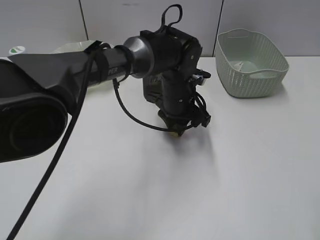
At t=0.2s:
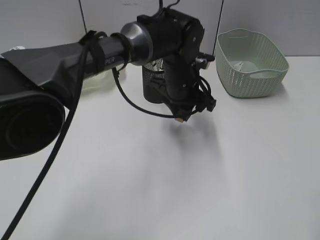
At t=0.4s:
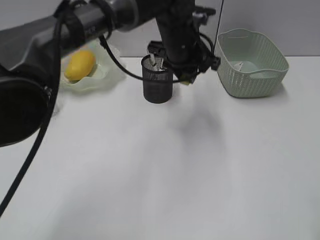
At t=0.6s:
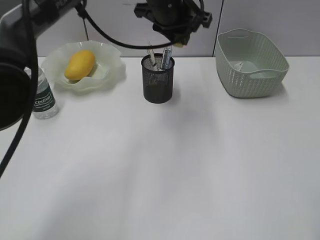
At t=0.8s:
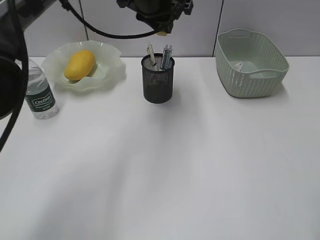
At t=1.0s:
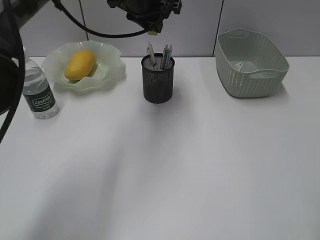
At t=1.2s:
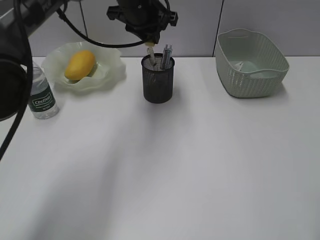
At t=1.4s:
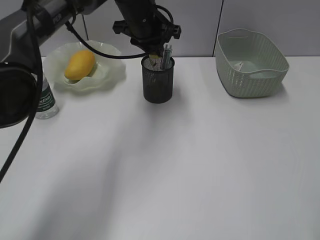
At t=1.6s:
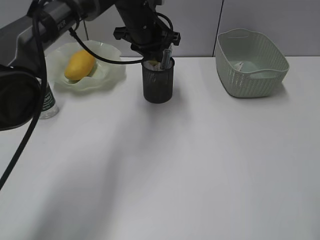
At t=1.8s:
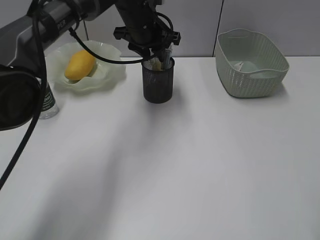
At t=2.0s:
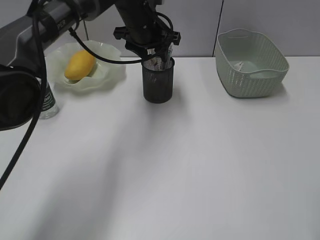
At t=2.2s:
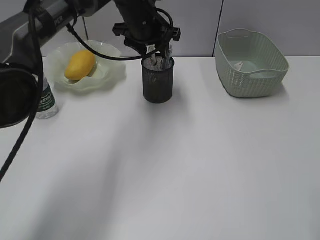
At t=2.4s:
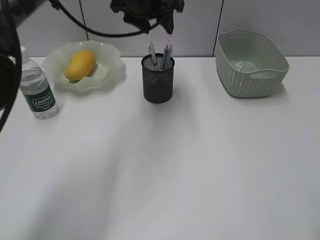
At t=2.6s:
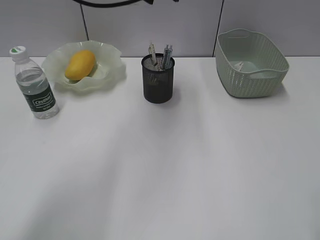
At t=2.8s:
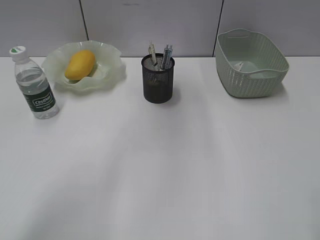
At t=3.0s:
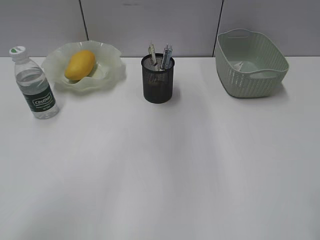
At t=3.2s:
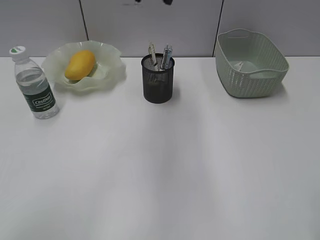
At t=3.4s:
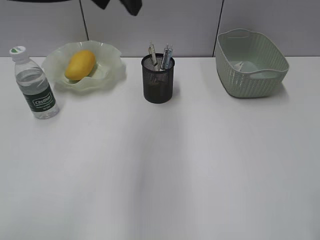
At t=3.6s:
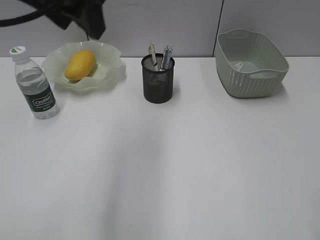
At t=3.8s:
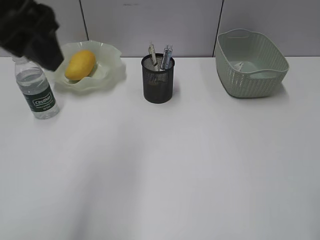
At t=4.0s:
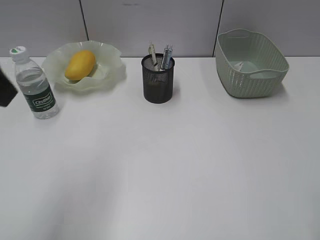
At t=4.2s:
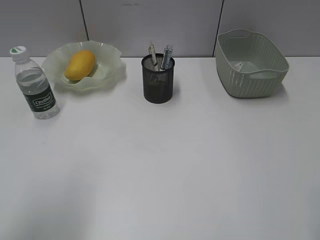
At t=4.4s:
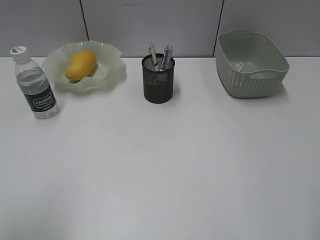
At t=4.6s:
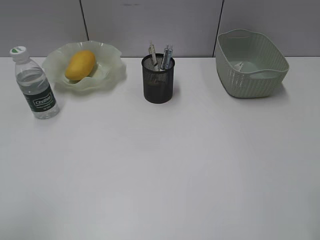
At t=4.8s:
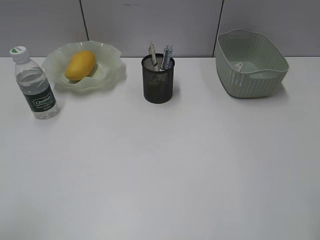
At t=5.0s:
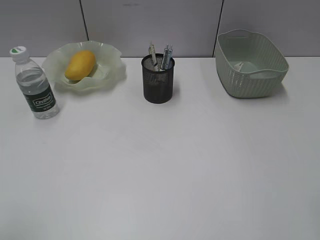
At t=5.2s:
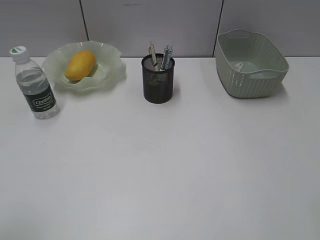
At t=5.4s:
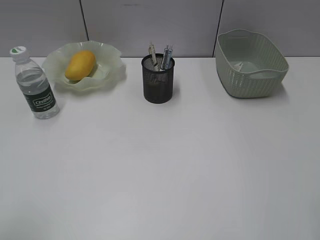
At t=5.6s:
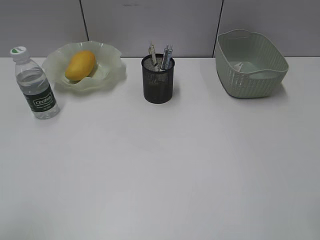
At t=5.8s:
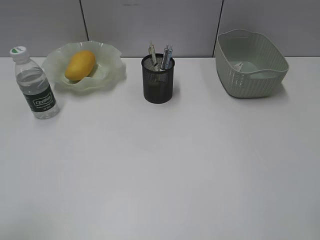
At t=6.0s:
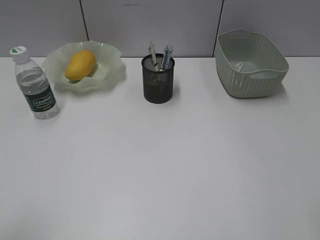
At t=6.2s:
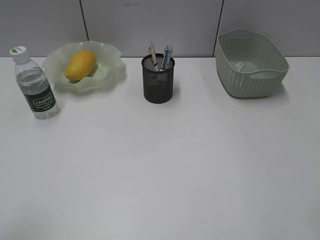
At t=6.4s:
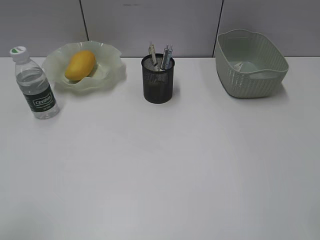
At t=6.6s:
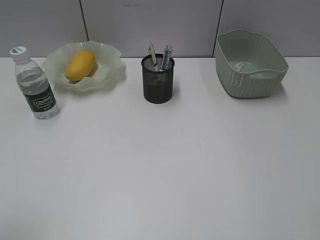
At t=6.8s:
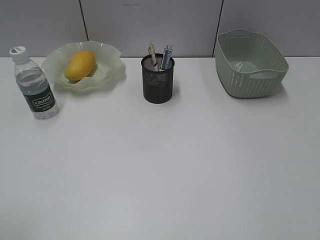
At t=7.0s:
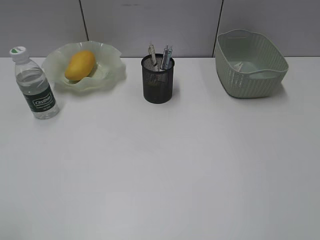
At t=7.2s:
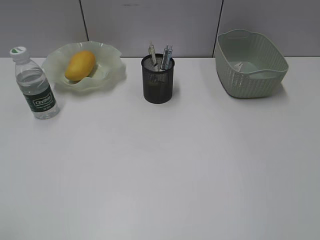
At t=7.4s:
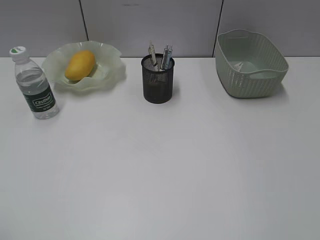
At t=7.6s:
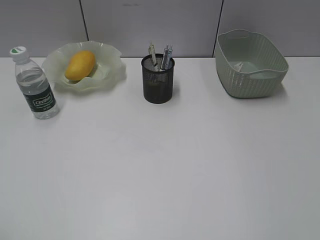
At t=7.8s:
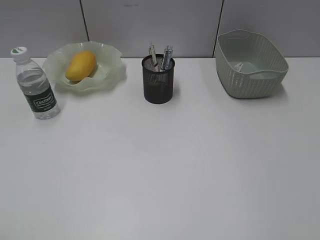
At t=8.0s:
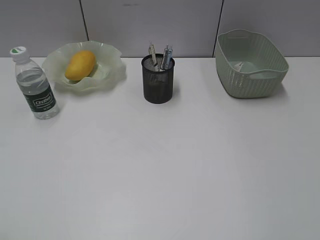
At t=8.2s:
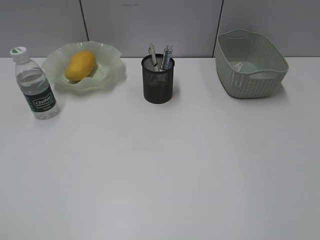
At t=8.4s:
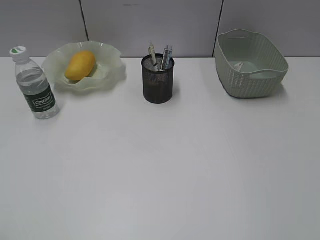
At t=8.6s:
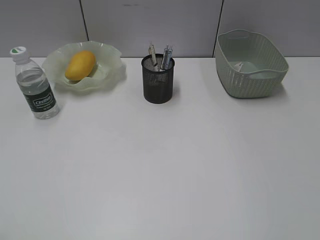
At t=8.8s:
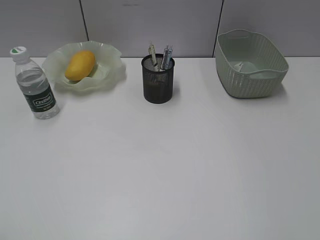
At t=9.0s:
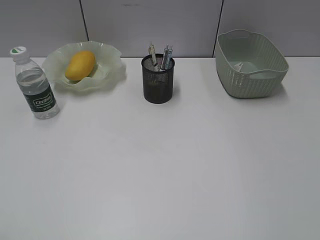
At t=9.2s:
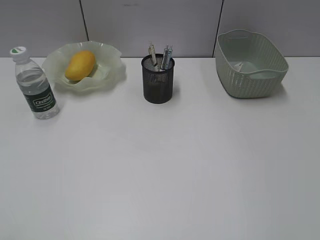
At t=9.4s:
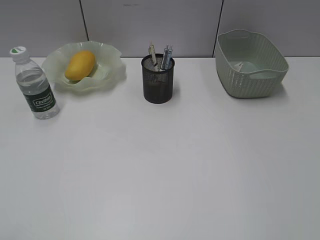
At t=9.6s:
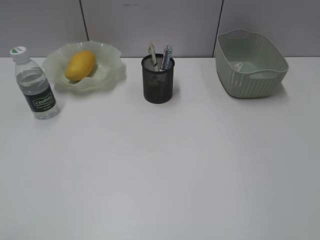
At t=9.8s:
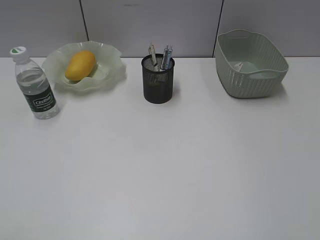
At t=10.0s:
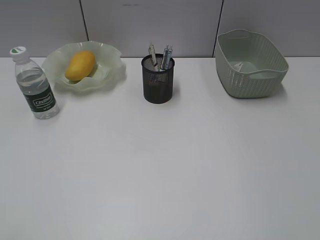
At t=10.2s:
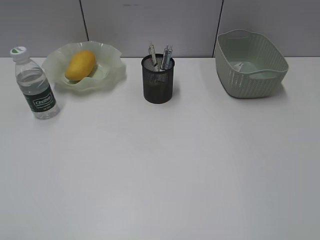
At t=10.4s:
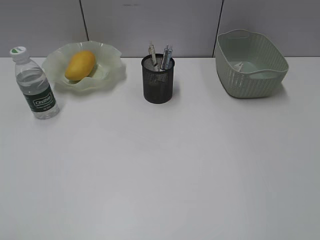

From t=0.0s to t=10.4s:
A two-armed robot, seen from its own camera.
Step, from t=0.0s to t=2.0s: Place the eraser in pen holder with left gripper.
From t=0.0s to t=1.4s: The left gripper heads upward, forward and to the left, covering roughly 15 cm.
From t=1.4s to t=3.0s: The left gripper heads upward and backward, covering approximately 20 cm, and opens up.
From t=3.0s to t=4.4s: The left gripper goes approximately 35 cm backward and to the left.

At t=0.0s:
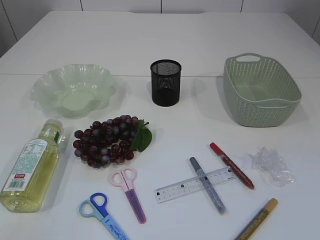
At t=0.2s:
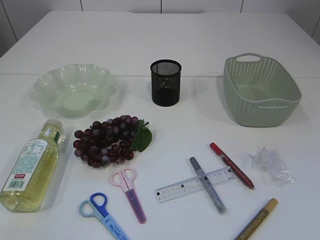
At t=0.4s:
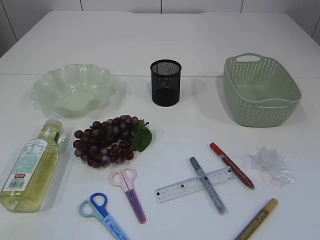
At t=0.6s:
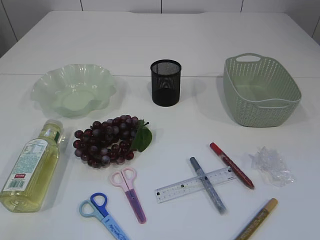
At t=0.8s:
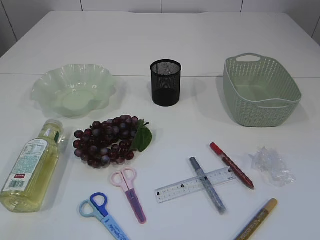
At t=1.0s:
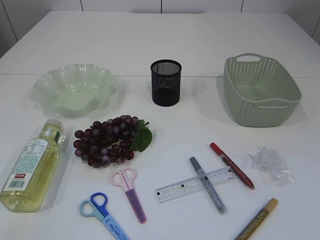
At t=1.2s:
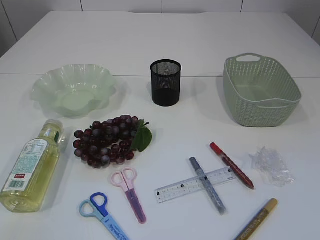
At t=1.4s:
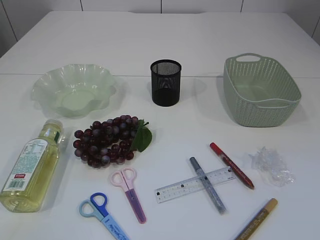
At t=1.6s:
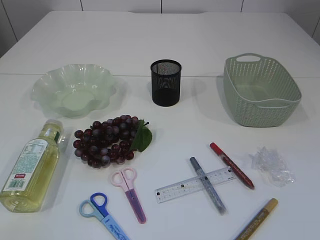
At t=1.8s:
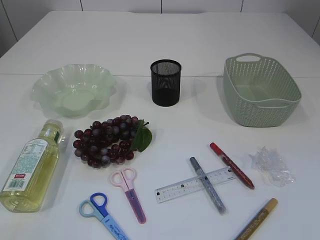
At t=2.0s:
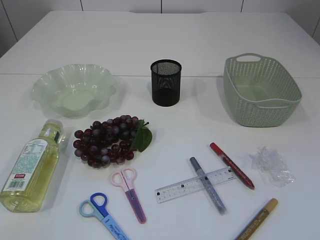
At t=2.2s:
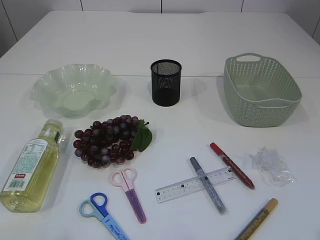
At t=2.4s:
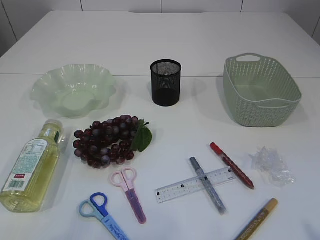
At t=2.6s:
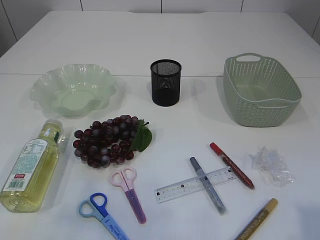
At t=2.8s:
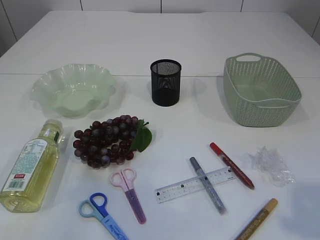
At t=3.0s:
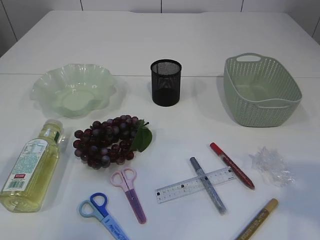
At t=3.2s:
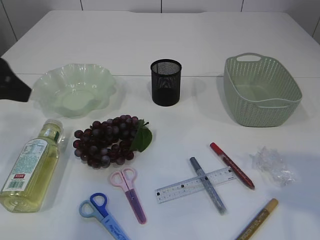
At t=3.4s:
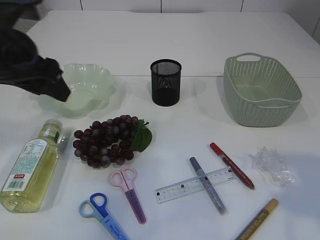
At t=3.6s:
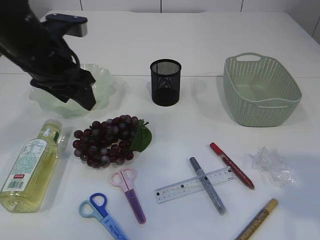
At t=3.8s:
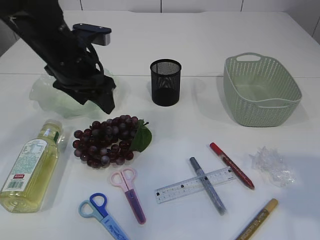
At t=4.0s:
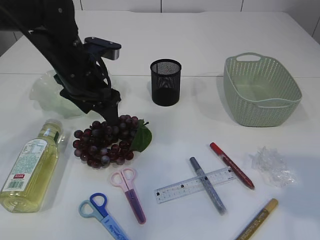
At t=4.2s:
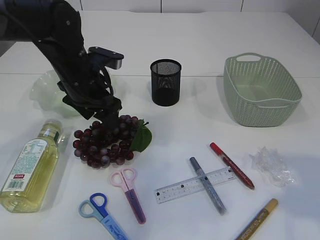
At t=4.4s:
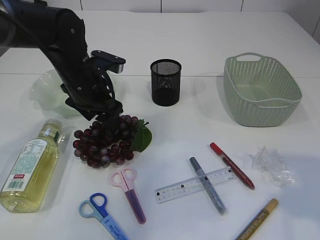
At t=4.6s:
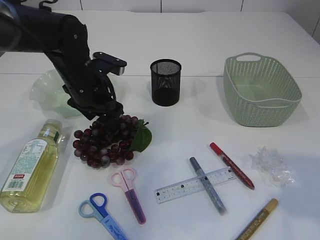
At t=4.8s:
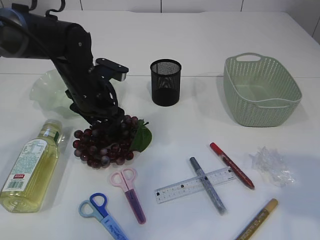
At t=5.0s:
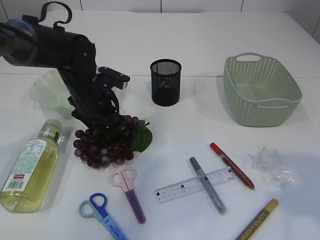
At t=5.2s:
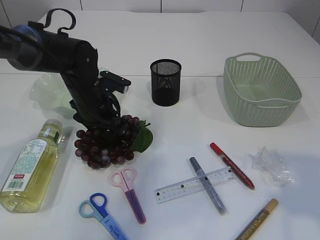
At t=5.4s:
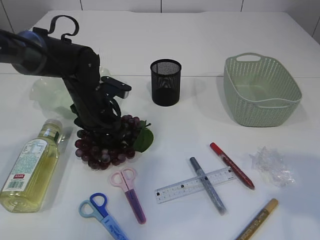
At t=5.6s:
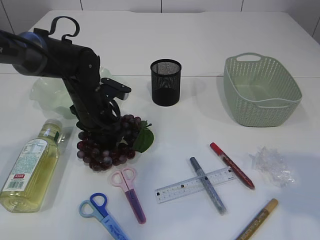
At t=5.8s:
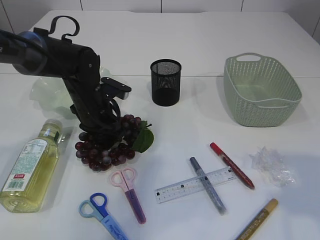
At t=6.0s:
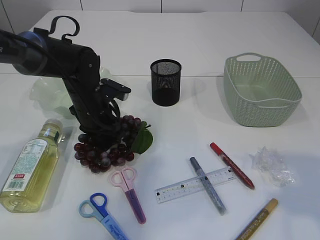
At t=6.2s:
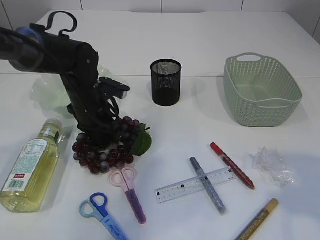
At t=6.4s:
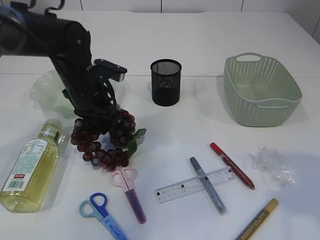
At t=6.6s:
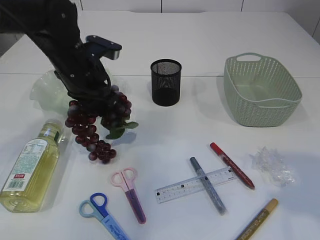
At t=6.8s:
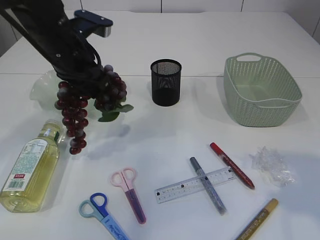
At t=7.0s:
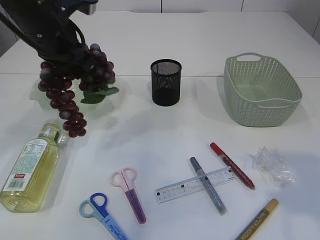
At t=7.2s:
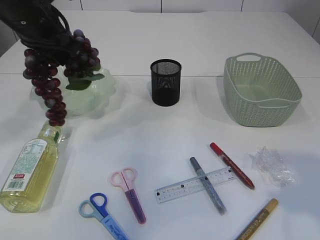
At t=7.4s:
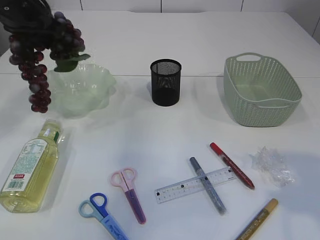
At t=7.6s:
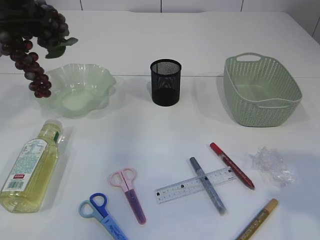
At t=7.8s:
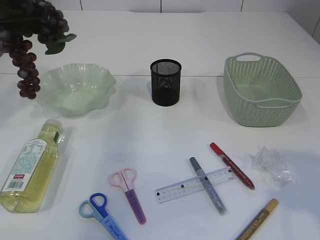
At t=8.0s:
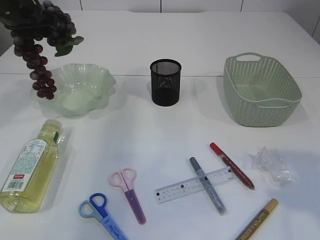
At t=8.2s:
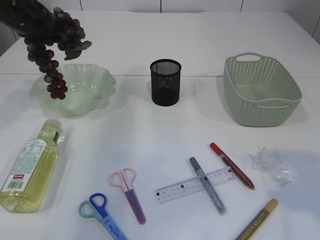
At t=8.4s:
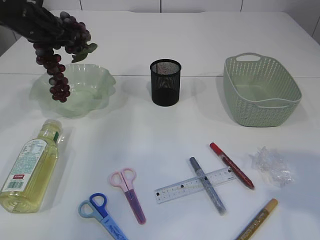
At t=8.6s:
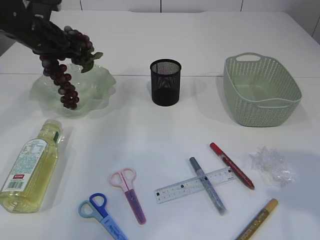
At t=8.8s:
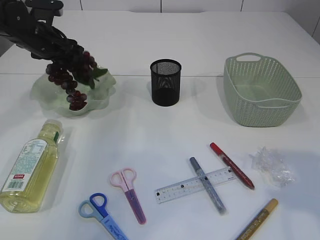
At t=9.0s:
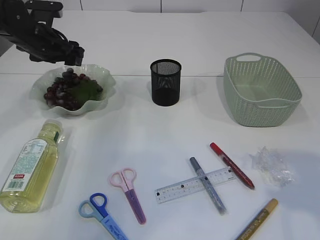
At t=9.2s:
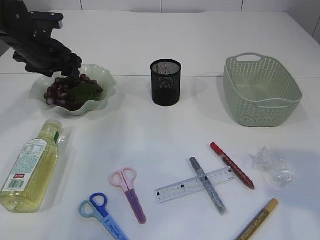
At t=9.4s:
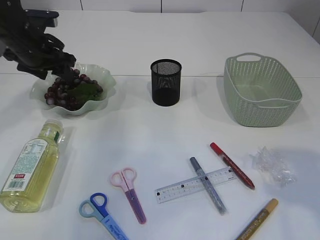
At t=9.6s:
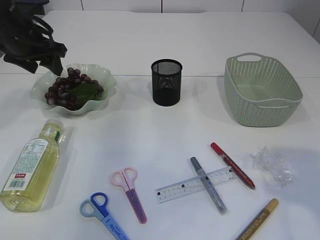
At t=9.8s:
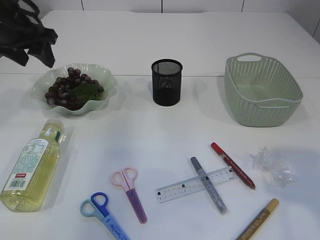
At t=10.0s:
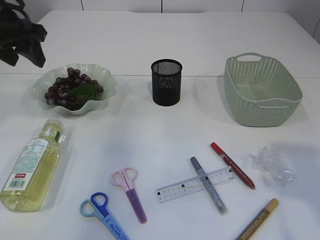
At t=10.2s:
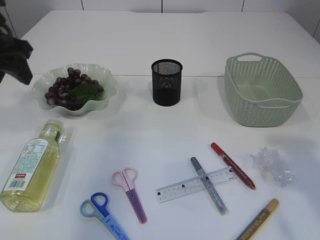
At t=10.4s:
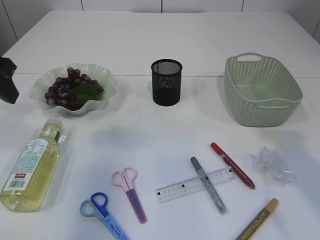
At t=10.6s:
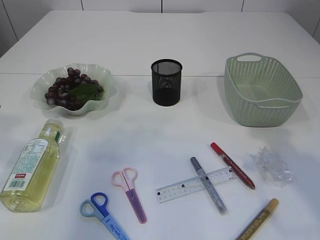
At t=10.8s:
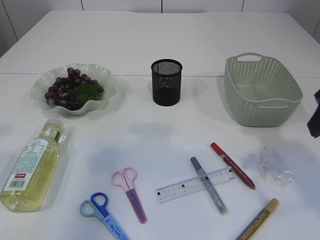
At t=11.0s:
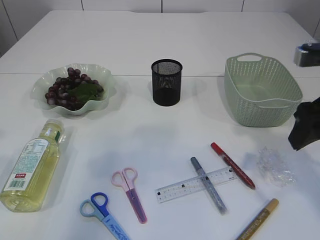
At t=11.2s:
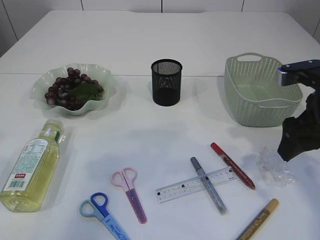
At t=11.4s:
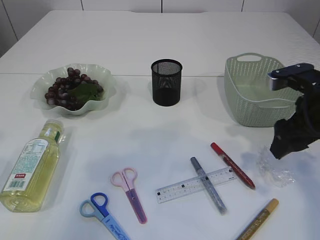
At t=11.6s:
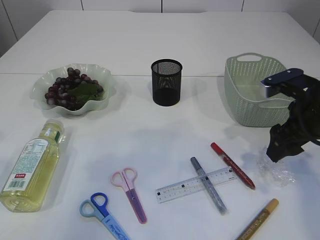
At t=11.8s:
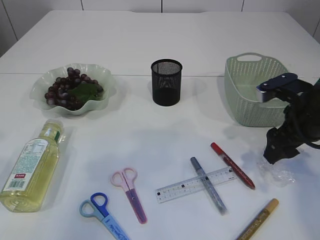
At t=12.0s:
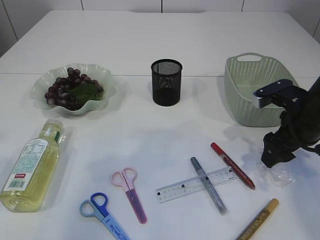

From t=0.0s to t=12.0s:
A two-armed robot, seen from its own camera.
Step, from t=0.0s to t=7.2s: Pick up the grapes.
Step, from t=7.4s to t=9.8s: Place the grapes in the plate.
From t=1.6s to t=3.0s: The right gripper heads forward and upward, covering some 15 cm. Meanwhile the left gripper heads forward, covering some 20 cm.
From t=3.0s to t=4.4s: The left gripper heads forward, to the right and downward, covering about 30 cm.
From t=4.4s to t=6.0s: The left gripper heads downward, covering some 5 cm, and closes.
From t=6.0s to t=7.6s: The left gripper is displaced upward and to the left by about 25 cm.
From t=7.6s to t=9.0s: The left gripper goes roughly 15 cm downward and forward, and opens up.
From t=9.0s to t=10.4s: The left gripper travels backward and upward by approximately 20 cm.
From t=10.4s to t=12.0s: The right gripper moves downward and forward, some 25 cm, while the left gripper moves backward, roughly 10 cm.
